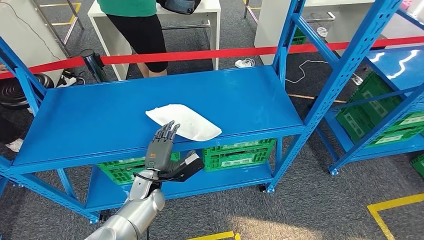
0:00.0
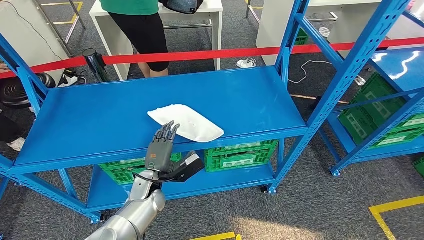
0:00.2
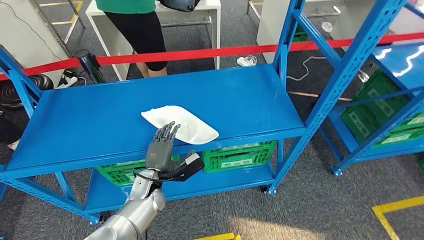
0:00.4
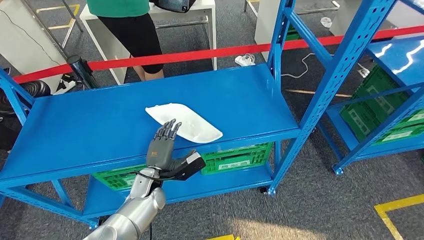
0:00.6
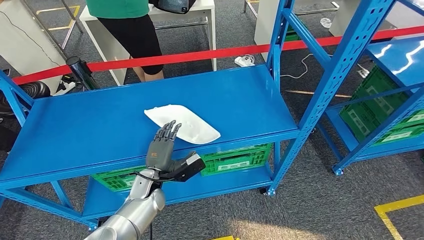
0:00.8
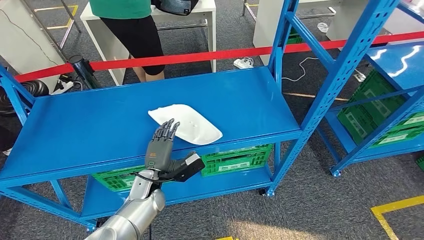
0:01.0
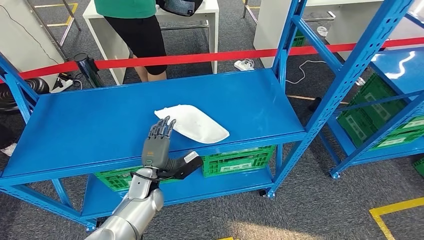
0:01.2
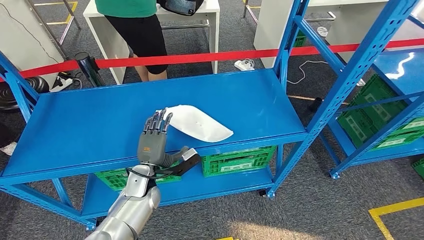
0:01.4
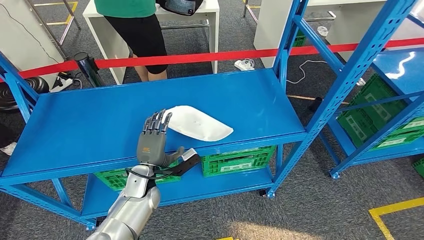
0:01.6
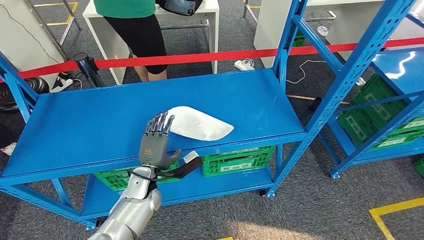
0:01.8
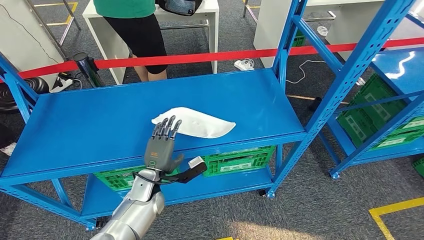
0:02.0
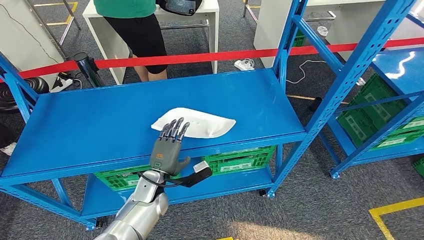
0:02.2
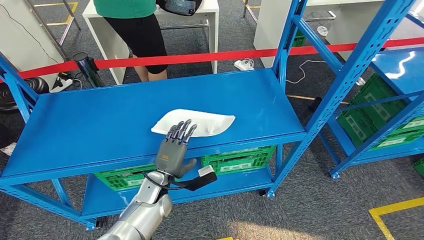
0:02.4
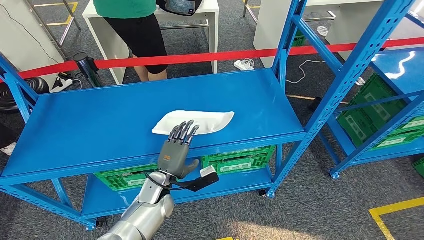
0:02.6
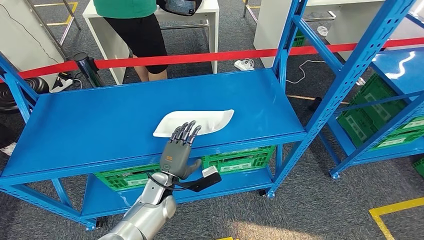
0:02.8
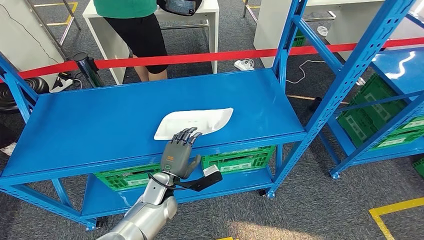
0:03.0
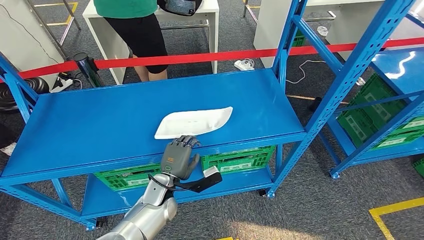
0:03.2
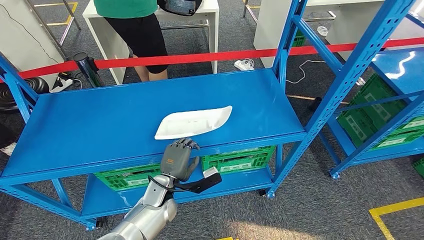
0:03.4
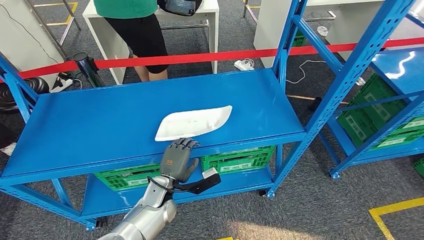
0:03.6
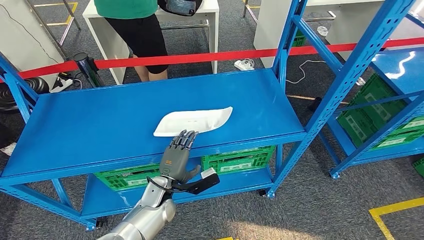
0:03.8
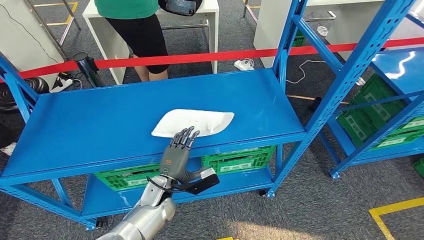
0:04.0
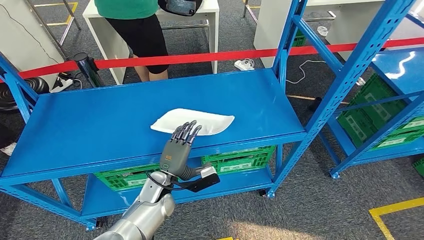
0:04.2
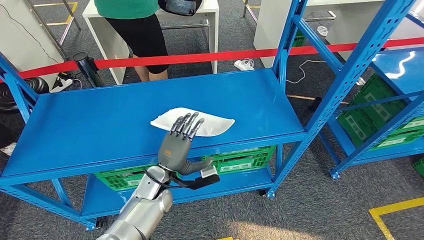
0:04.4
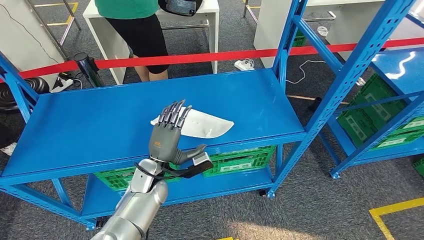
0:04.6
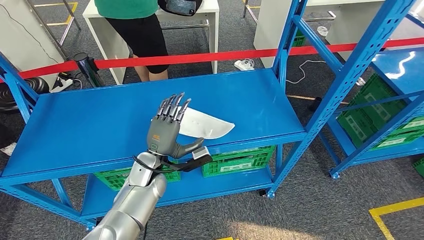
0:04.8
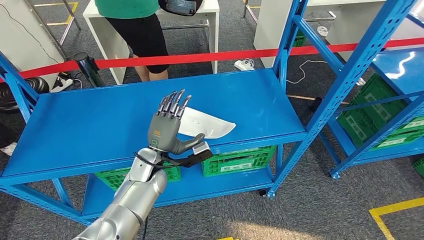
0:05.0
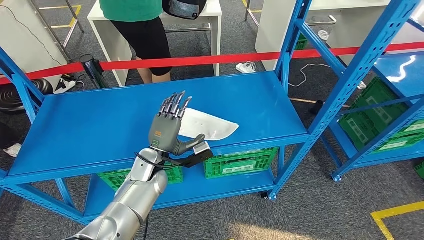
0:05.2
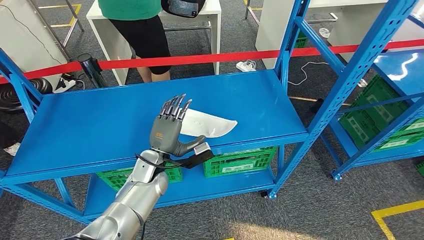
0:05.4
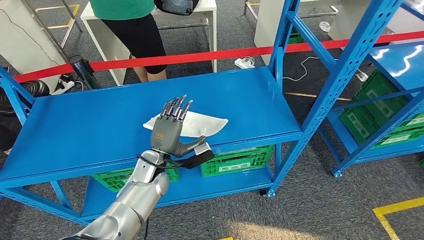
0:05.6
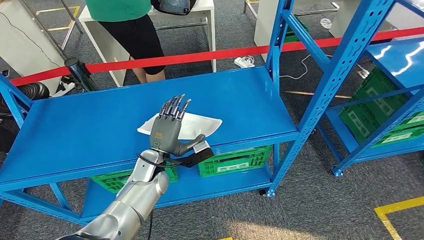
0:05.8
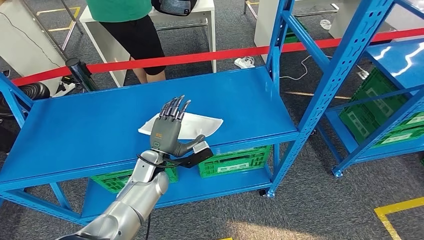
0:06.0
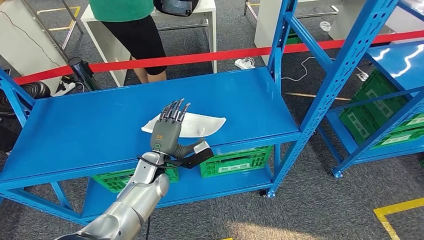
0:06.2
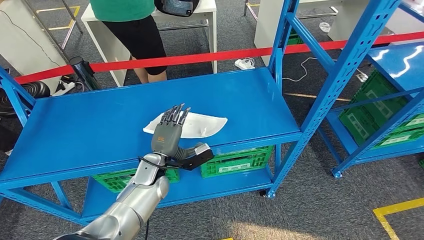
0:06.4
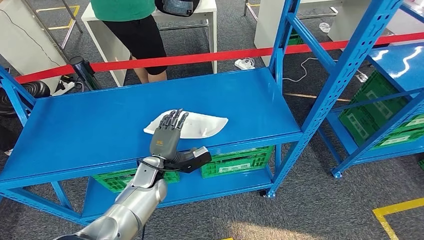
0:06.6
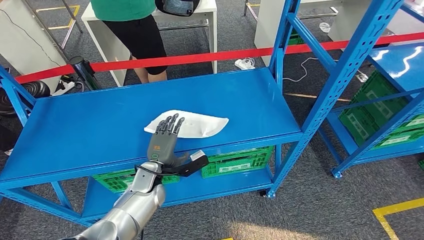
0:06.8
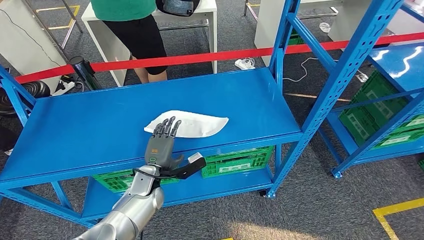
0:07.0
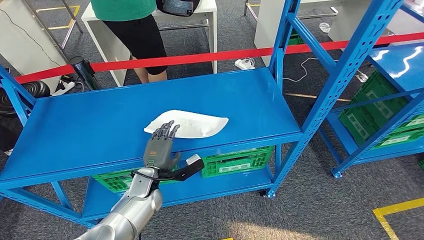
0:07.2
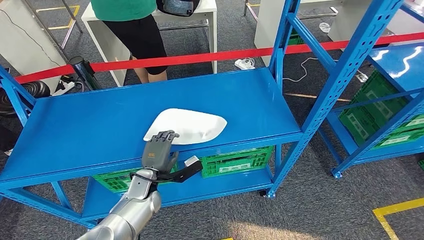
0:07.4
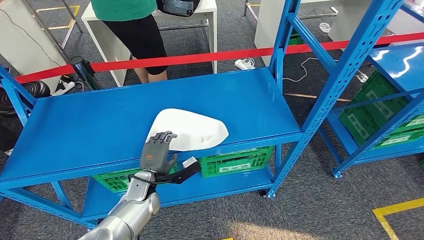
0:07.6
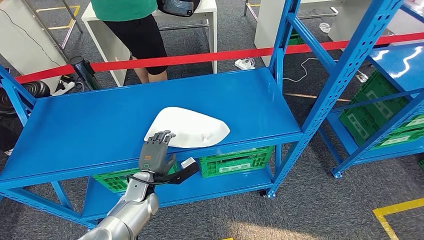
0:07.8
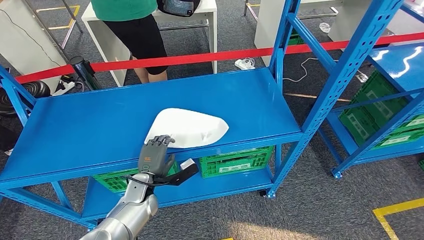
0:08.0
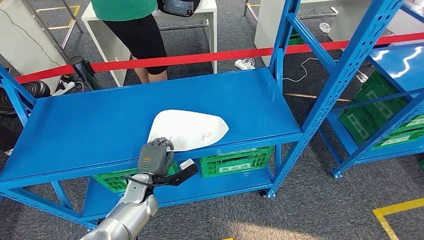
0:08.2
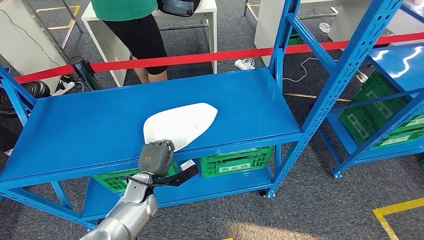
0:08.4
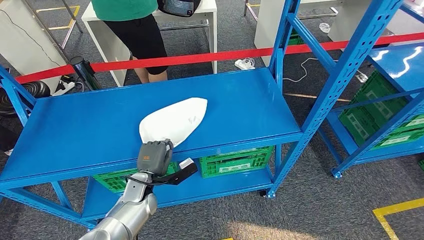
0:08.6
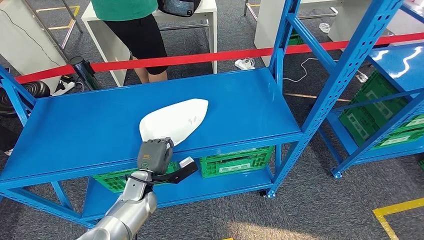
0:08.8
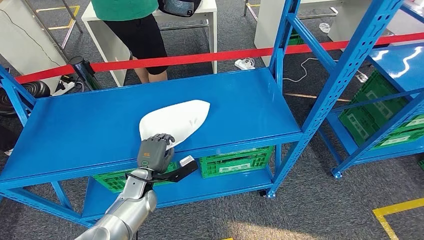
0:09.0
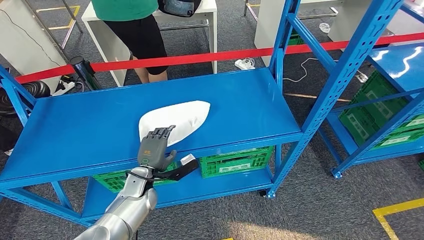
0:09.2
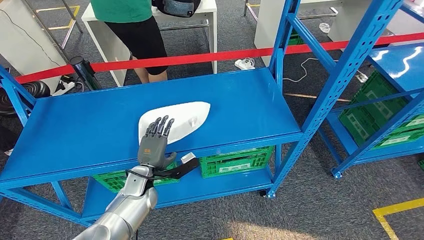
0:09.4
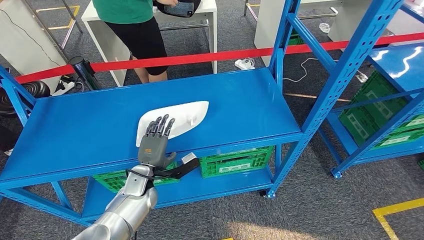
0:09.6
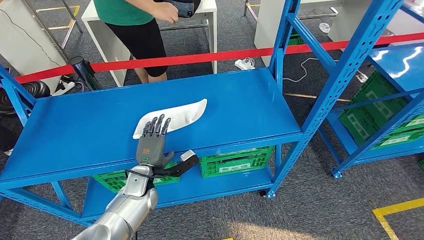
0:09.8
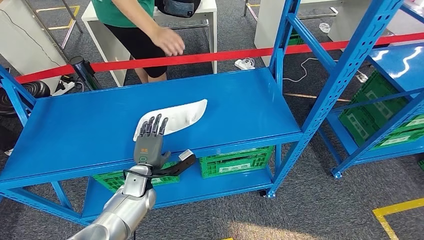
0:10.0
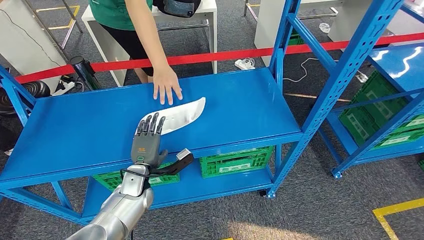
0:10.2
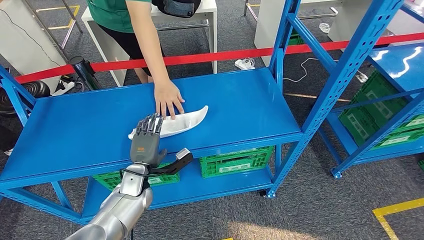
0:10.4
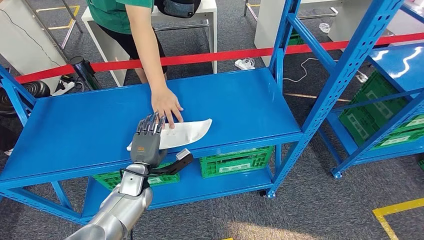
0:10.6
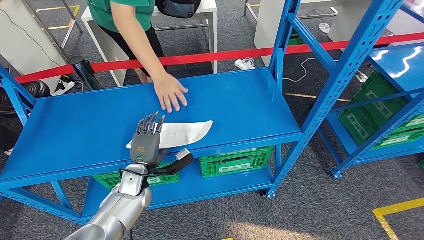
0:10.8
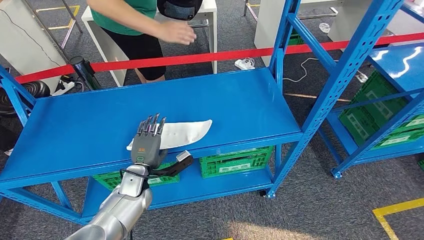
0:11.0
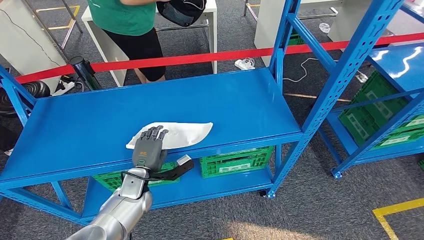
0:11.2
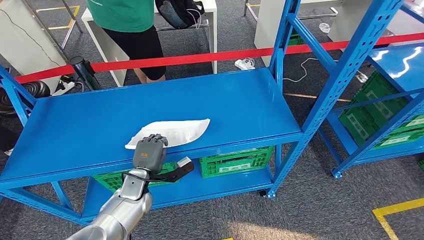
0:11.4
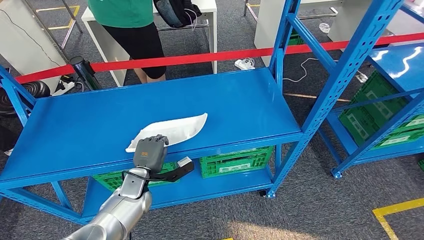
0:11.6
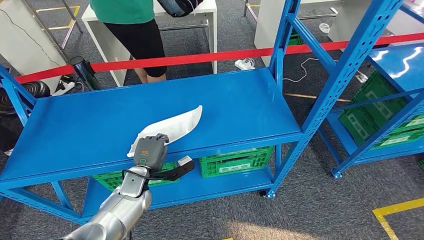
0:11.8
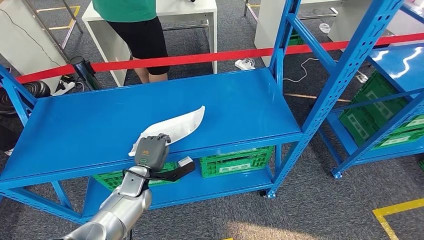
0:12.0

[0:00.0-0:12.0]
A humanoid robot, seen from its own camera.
0:01.6 to 0:03.0: The left hand moves about 5 cm.
0:03.0 to 0:04.4: The hands make only small movements.
0:06.0 to 0:07.6: The left hand moves downward, approximately 5 cm.
0:07.6 to 0:09.0: Both hands stay put.
0:09.0 to 0:12.0: There are only small adjustments of the hands.

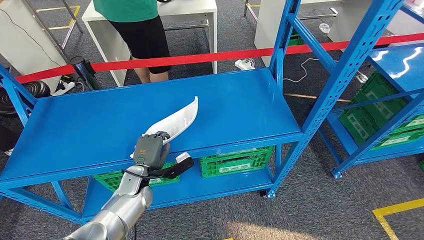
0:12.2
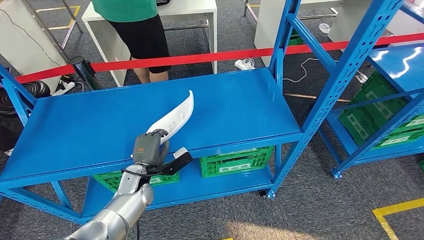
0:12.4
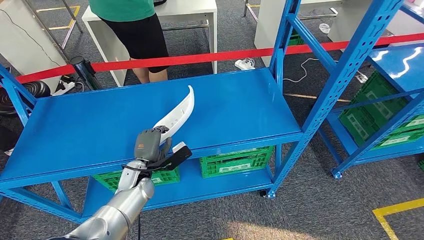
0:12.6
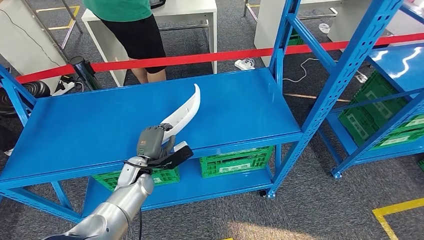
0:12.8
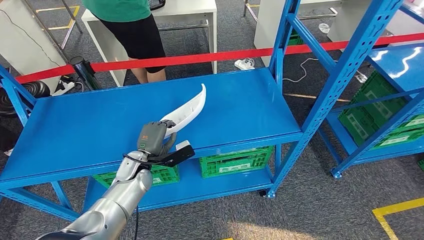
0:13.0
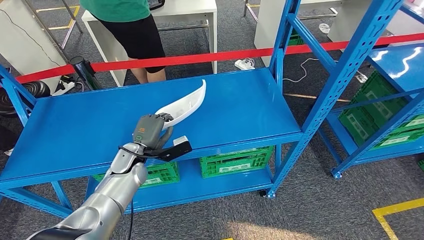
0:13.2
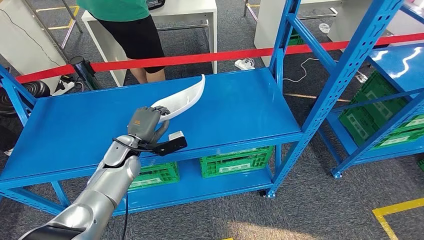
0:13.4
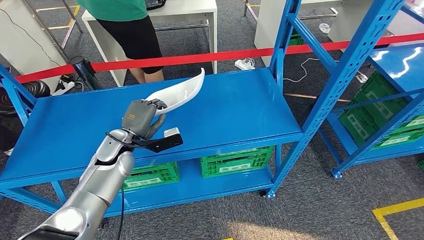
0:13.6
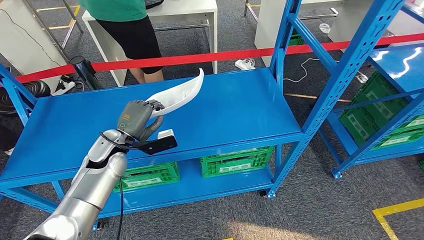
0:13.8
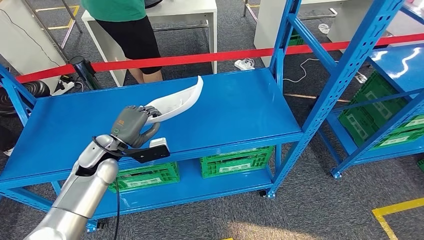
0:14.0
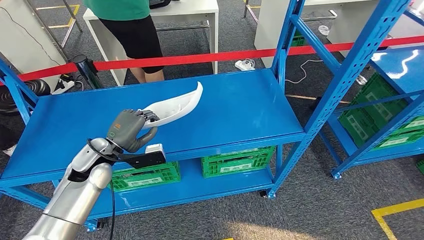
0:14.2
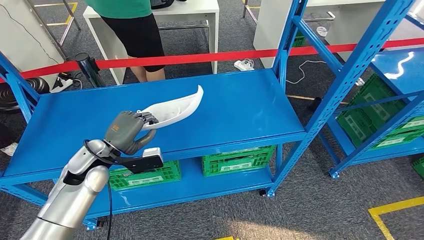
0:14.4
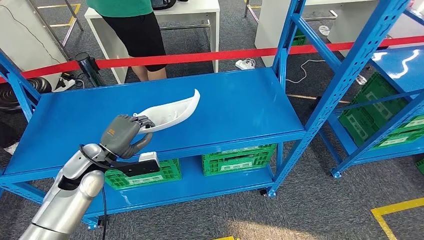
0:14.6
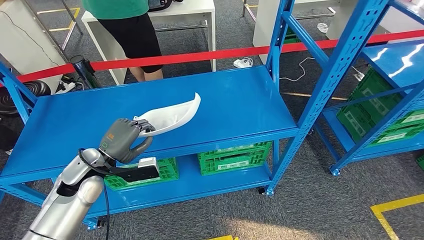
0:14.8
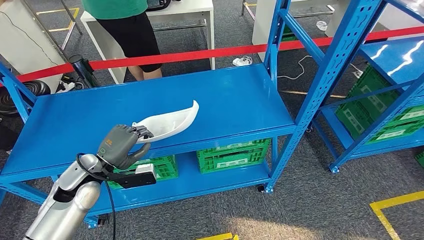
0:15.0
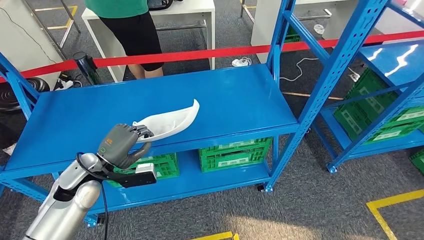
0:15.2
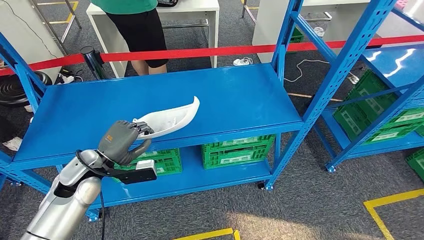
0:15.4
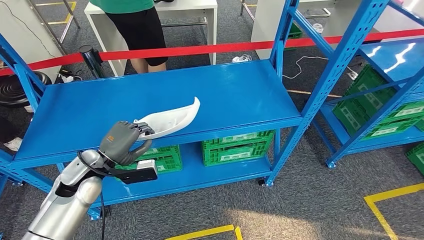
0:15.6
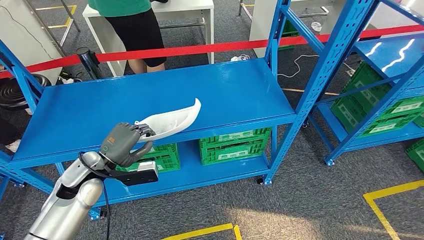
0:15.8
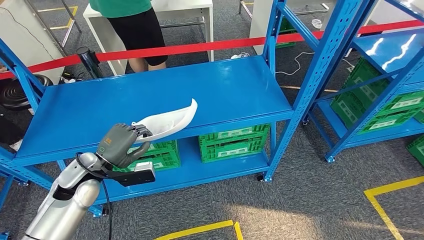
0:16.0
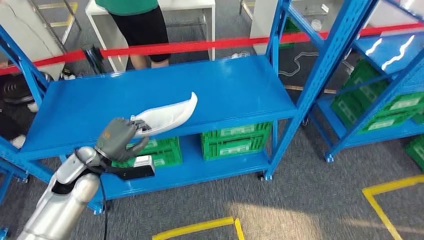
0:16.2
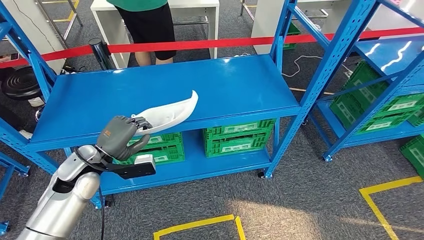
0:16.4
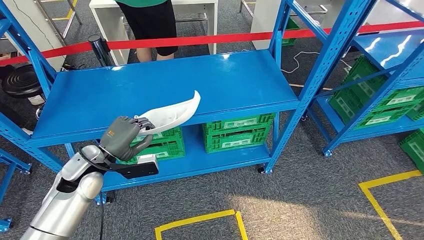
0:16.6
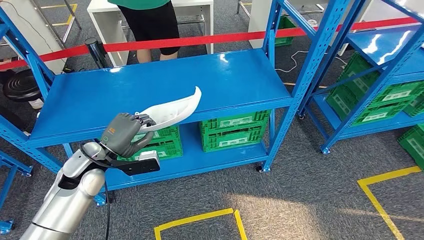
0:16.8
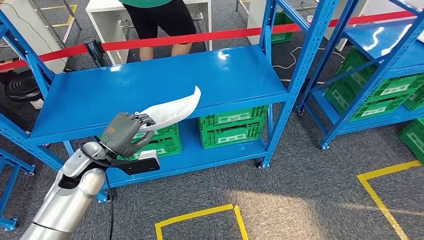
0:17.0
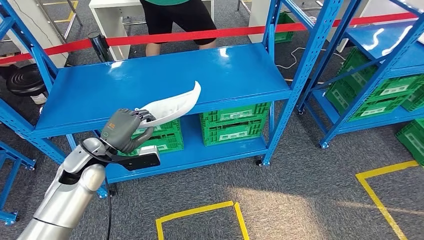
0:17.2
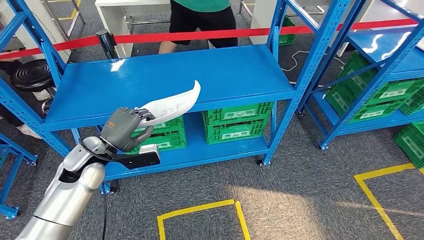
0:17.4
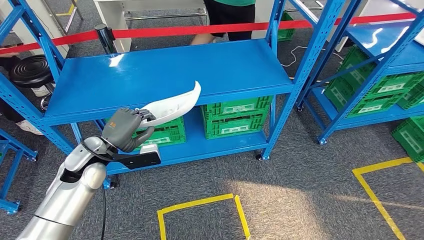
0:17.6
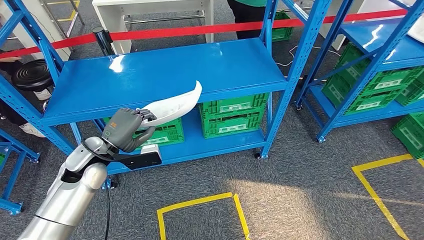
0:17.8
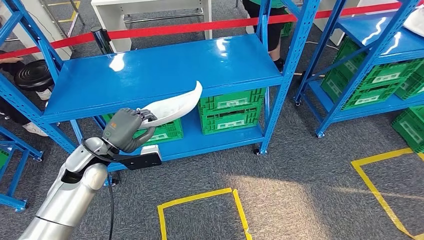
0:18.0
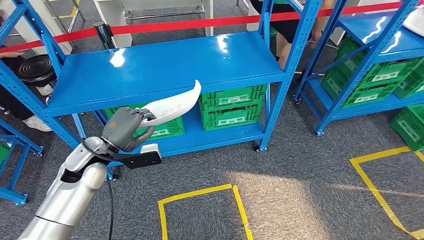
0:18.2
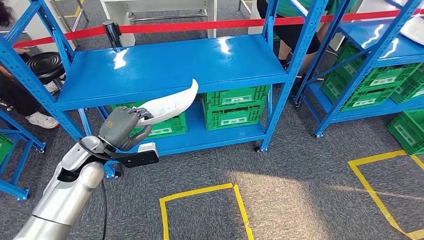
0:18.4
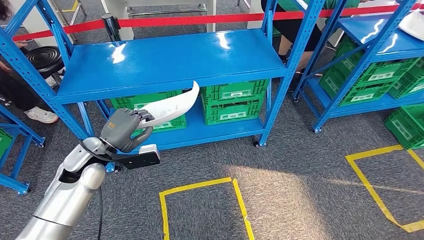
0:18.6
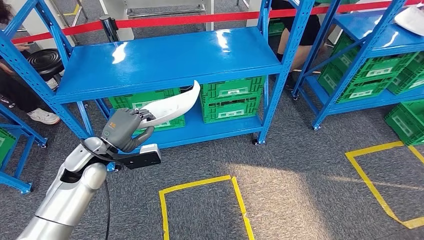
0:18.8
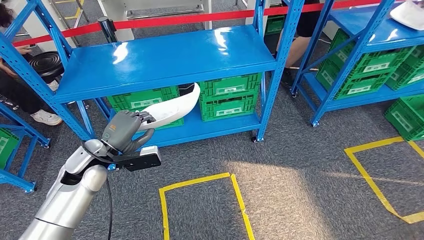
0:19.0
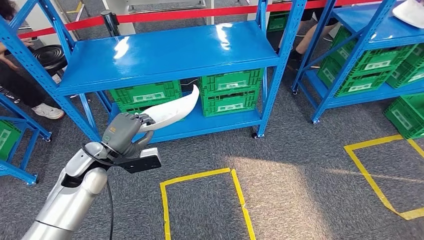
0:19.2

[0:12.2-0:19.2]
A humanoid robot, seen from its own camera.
Step, 0:12.2 to 0:15.0: Pick up the small parts from the shelf.
0:12.2 to 0:13.6: The left hand goes some 10 cm upward and forward.
